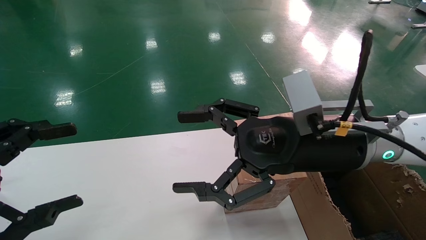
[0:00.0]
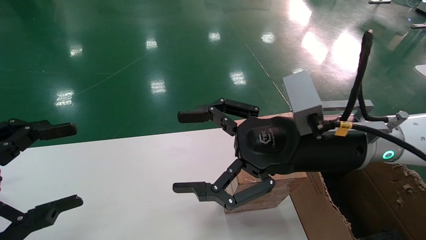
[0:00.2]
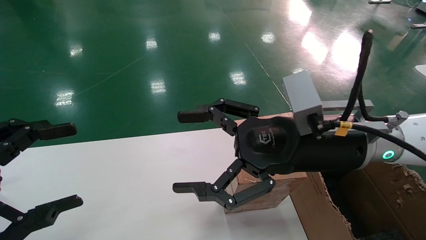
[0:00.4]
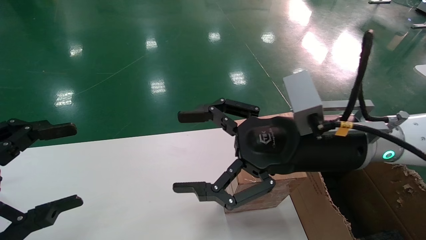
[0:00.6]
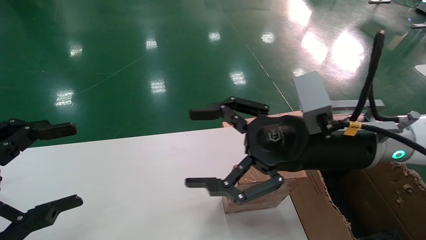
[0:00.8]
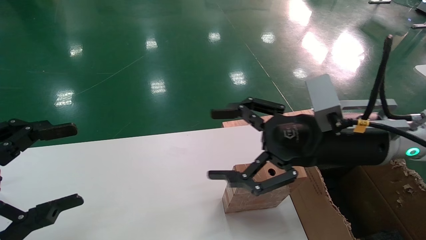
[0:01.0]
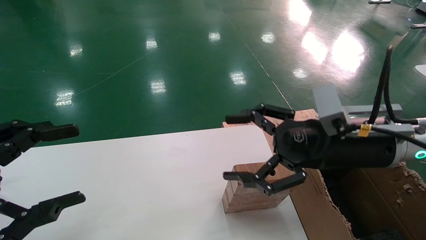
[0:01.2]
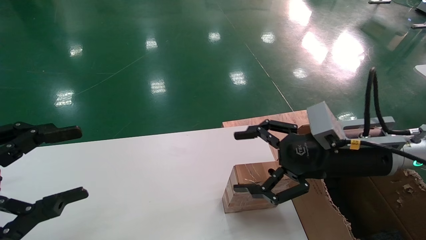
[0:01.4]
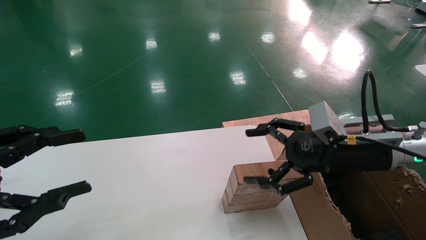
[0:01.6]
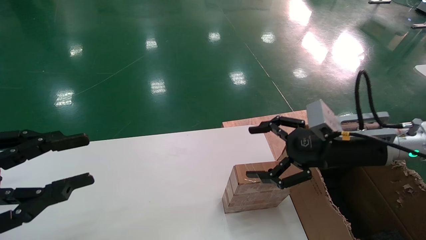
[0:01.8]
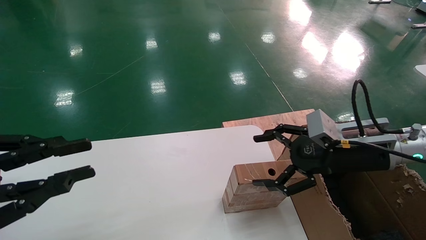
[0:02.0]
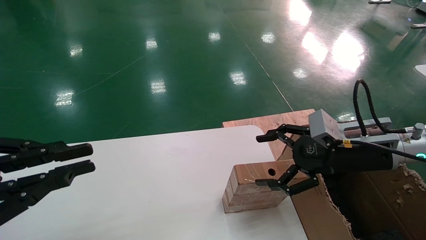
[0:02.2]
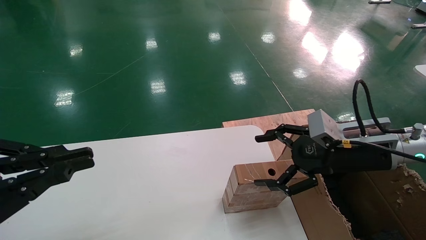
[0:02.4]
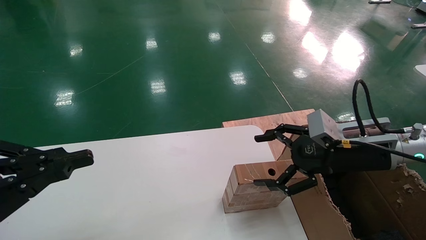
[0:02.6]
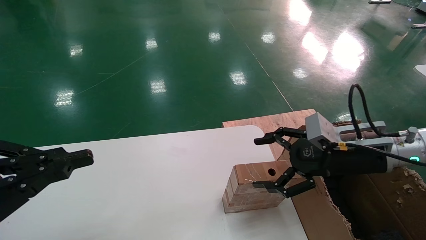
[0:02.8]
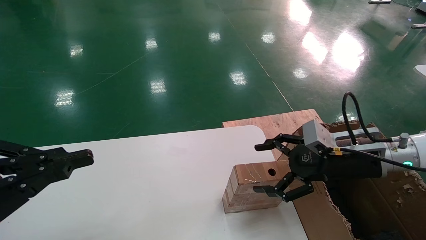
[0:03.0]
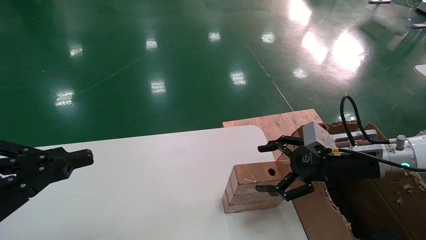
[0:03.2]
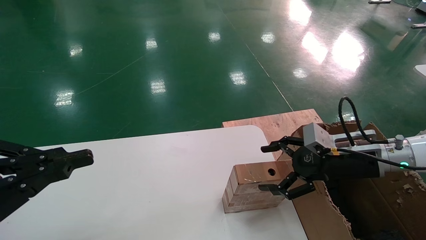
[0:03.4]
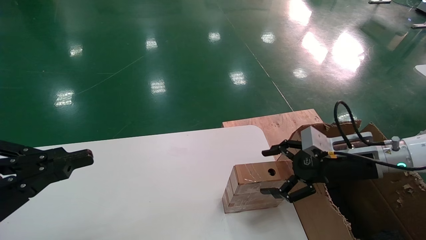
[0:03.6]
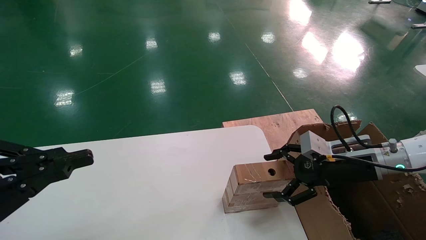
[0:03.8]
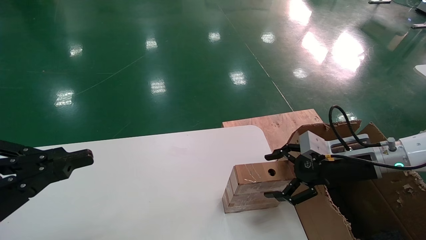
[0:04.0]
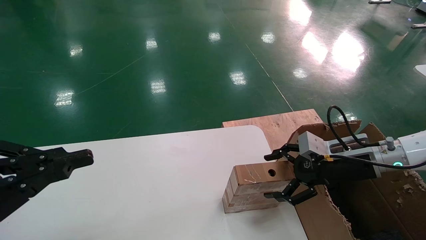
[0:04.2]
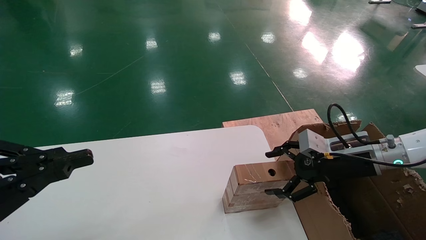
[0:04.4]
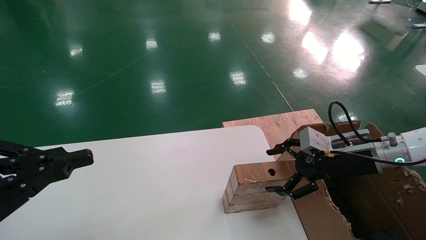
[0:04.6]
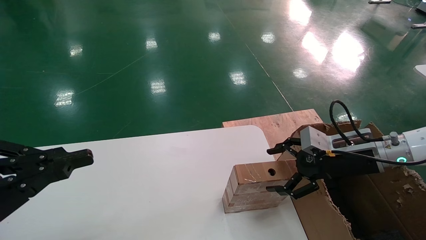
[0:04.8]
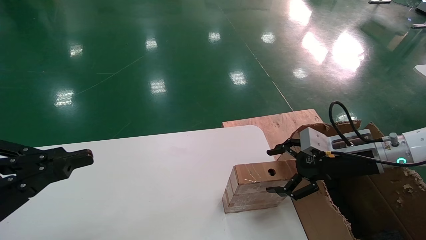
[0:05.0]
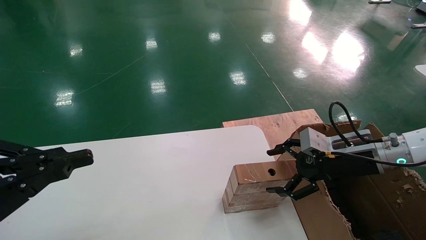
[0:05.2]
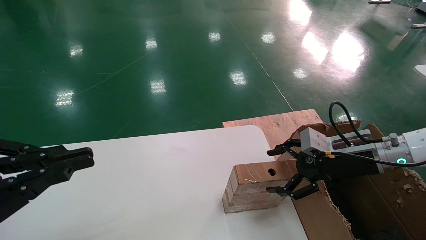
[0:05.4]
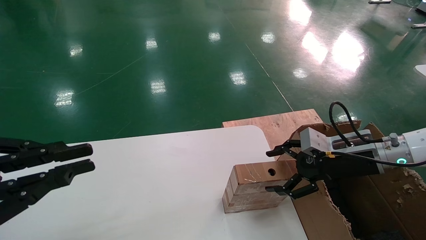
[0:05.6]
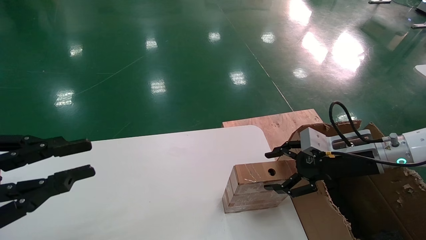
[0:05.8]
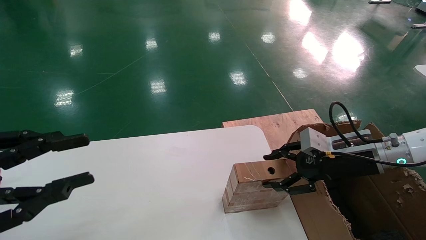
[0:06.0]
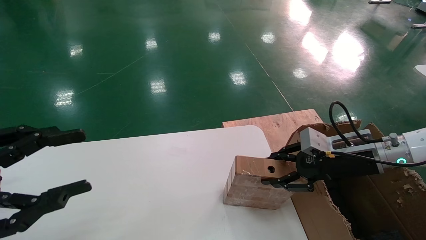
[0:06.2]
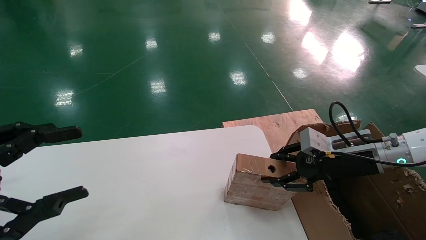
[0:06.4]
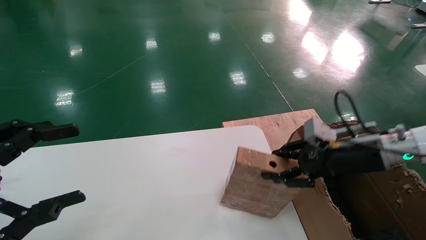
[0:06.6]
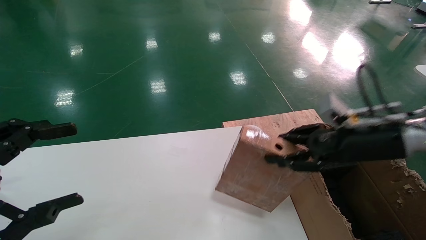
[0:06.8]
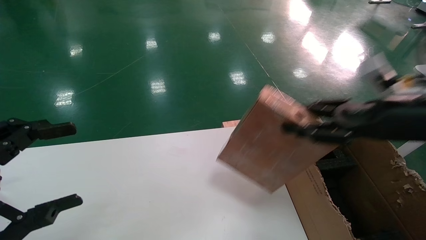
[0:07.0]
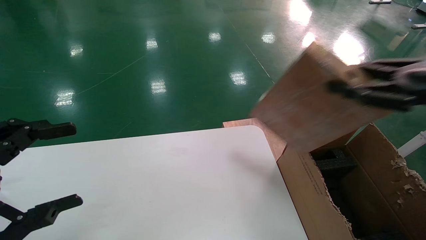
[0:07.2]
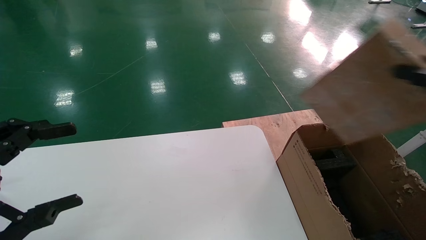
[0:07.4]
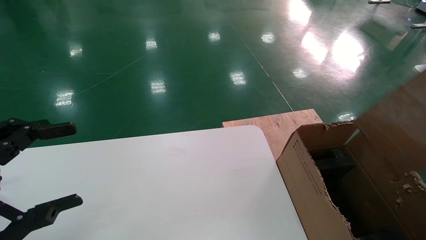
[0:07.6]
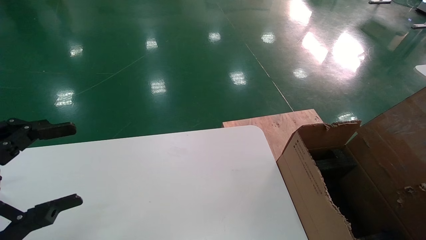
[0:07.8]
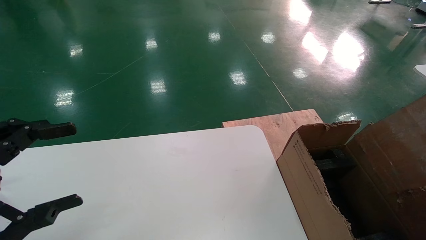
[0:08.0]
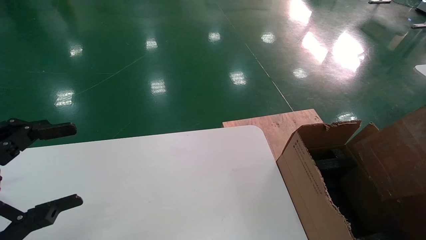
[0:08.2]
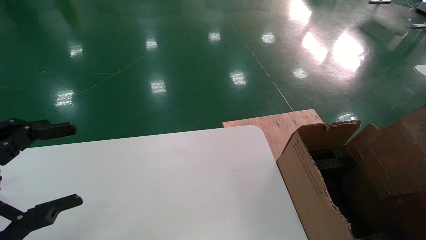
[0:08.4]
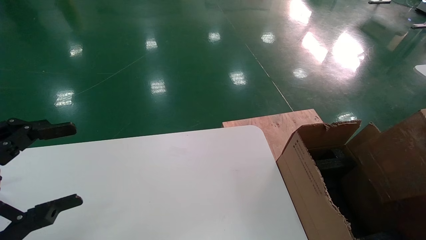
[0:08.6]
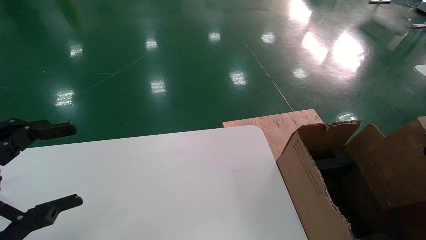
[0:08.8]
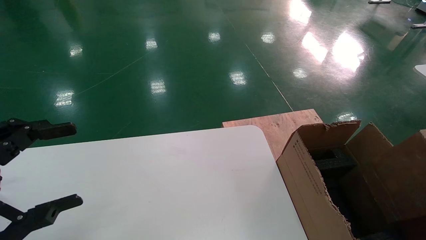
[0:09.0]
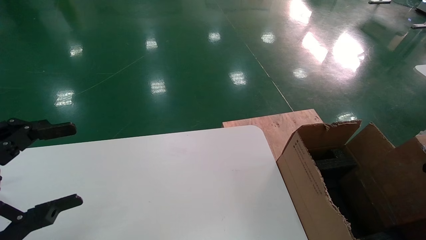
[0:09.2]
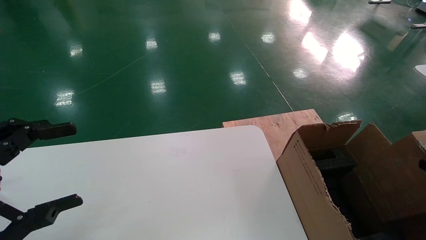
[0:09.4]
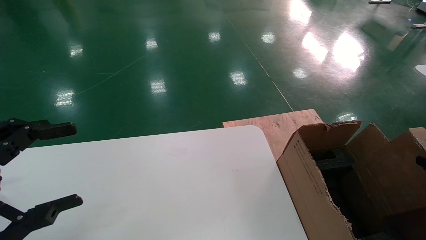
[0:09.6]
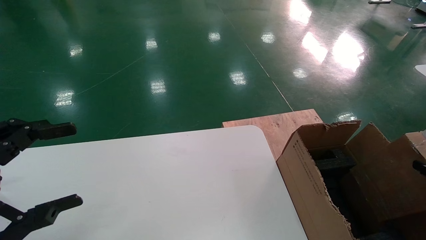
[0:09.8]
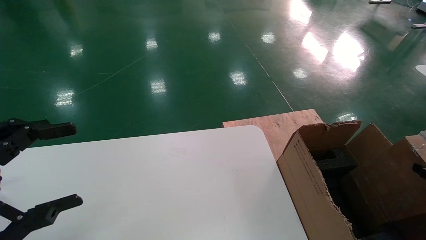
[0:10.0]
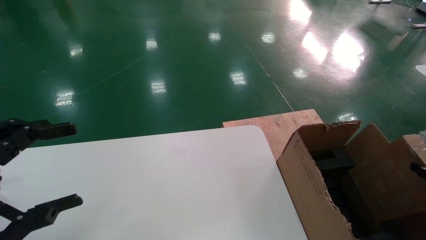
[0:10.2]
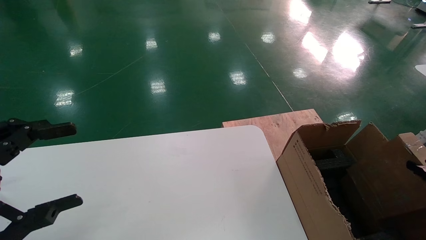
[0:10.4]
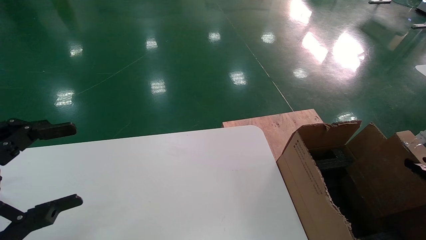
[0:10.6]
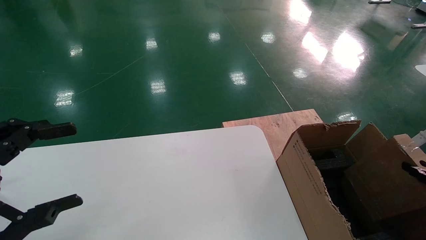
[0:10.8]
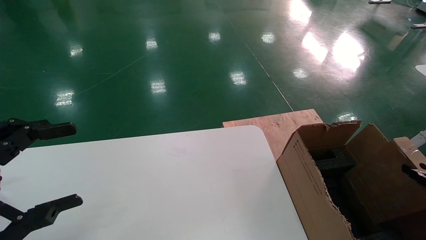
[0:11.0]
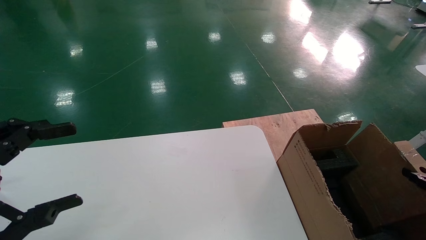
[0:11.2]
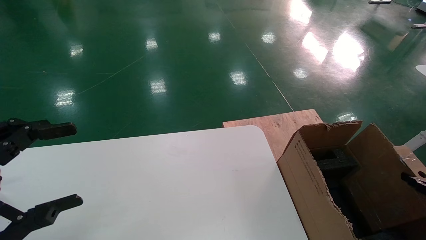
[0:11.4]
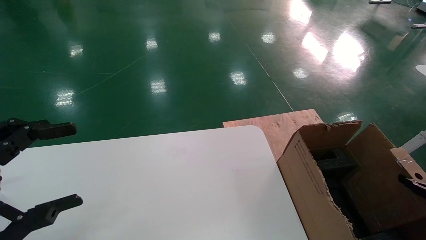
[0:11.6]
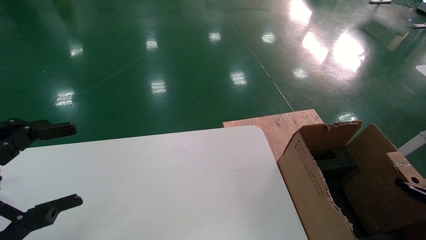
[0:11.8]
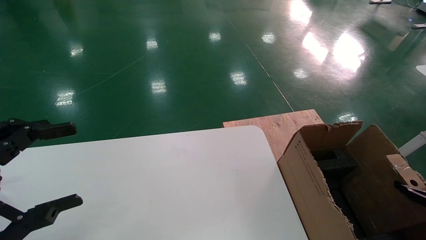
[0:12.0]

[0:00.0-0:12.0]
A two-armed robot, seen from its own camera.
Task of the whole recording: put the box on the table into the big box.
Step, 0:01.2 to 0:06.4: Pick up the mouse and the power cord paper box.
0:00.0 to 0:01.6: The right gripper travels to the right by some 10 cm.
0:01.6 to 0:03.0: The right gripper changes place by approximately 5 cm; the left gripper closes its fingers.
0:03.0 to 0:04.4: The grippers move only a little.
0:04.4 to 0:06.0: The right gripper closes its fingers.
0:06.0 to 0:07.6: The right gripper shifts approximately 30 cm backward, to the right and upward, and closes up, while the left gripper opens up.
0:10.4 to 0:12.0: The right gripper heads downward, covering about 5 cm.

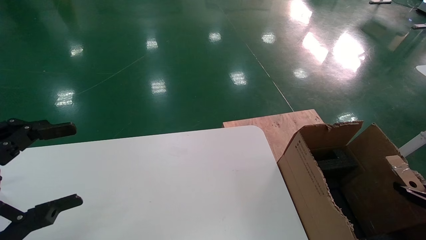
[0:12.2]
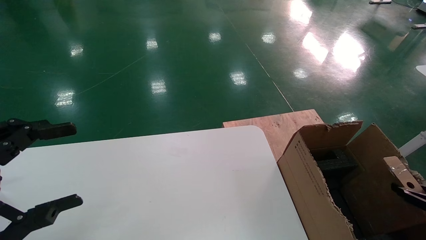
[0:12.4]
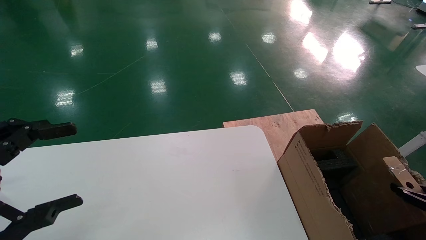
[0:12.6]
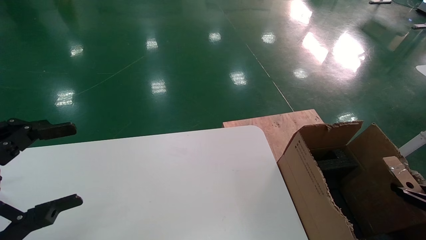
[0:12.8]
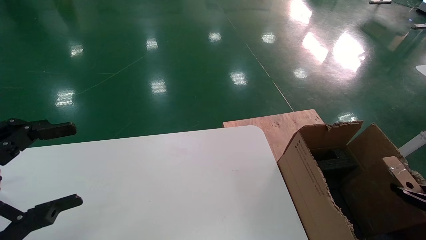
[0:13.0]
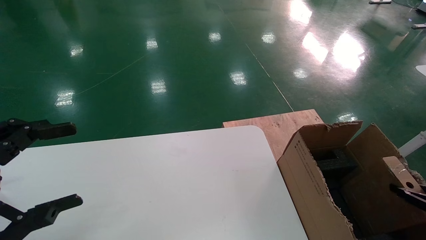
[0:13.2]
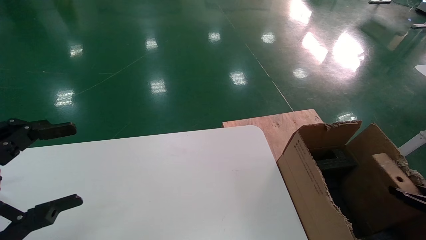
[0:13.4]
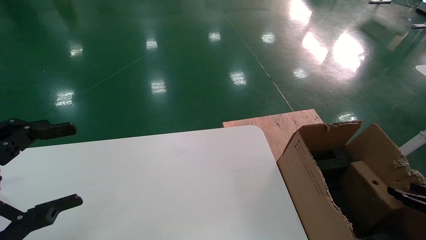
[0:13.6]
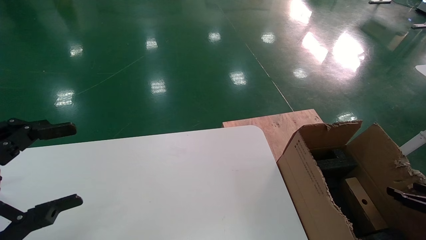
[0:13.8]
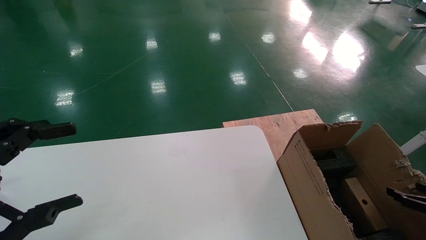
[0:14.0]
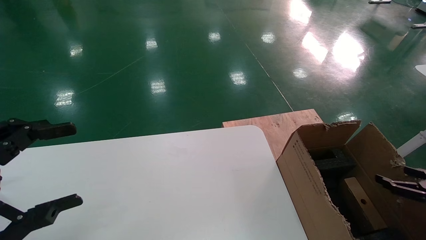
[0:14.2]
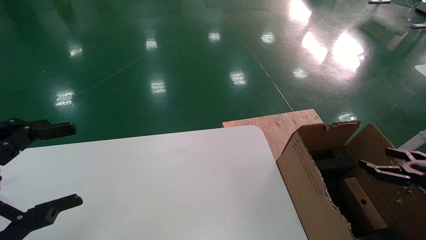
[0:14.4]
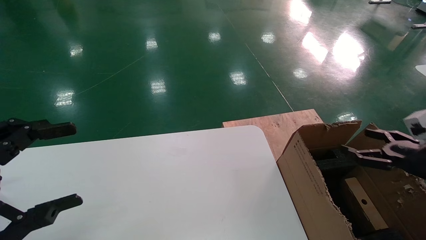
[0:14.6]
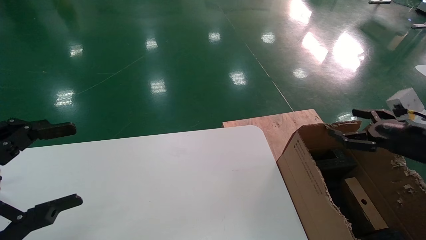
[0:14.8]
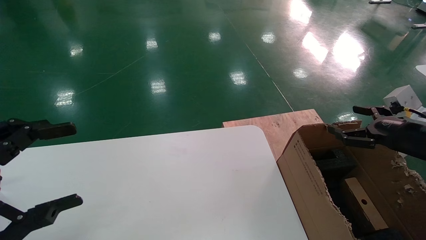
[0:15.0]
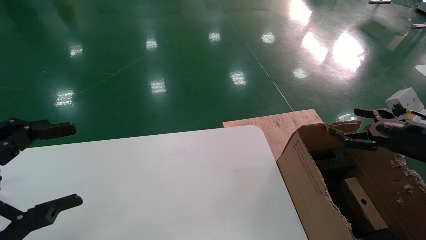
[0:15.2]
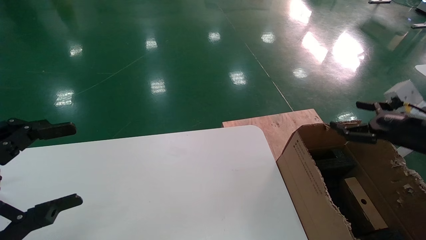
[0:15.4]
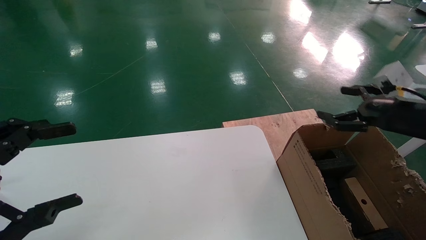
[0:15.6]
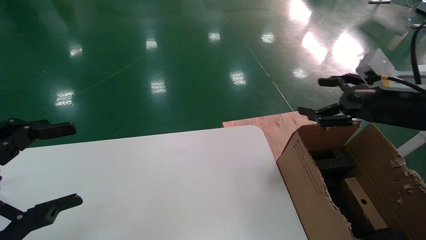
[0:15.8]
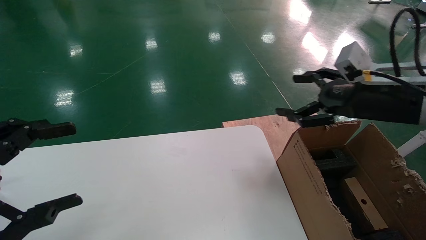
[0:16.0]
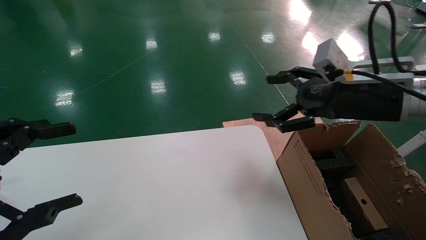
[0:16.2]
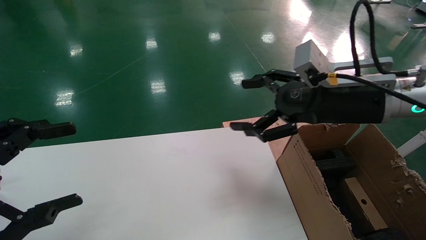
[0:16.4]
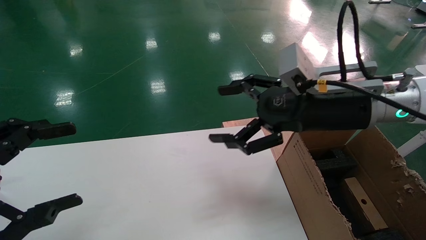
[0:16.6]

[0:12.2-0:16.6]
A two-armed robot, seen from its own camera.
Task of the whole recording: put the box on the table into the big box.
0:12.2 to 0:13.6: The two grippers keep their place.
0:13.6 to 0:15.2: The right gripper travels upward, to the left and forward by roughly 20 cm, and opens up.
0:15.2 to 0:16.6: The right gripper is displaced to the left and upward by approximately 25 cm.
